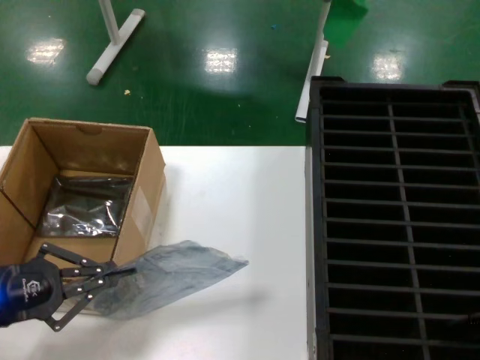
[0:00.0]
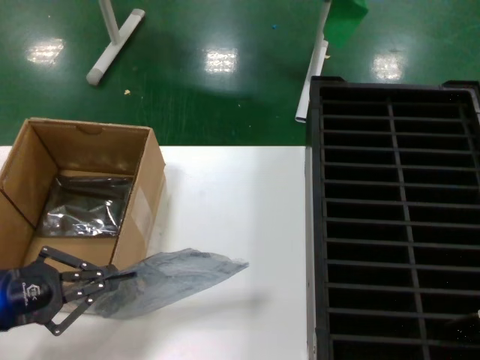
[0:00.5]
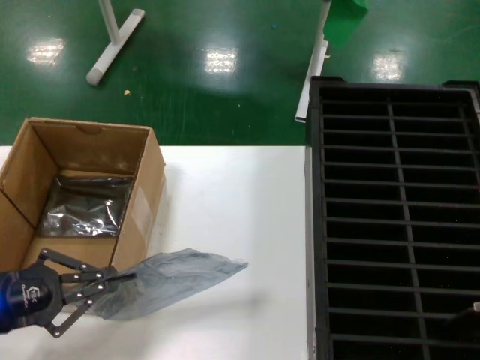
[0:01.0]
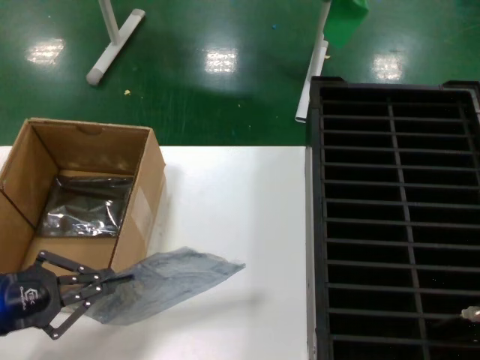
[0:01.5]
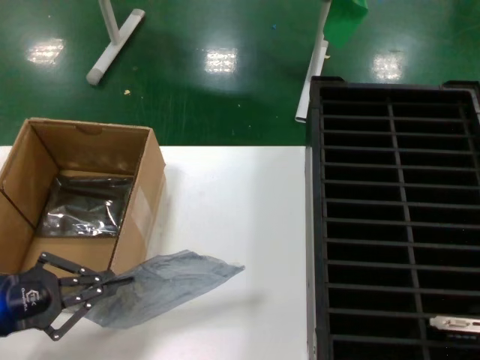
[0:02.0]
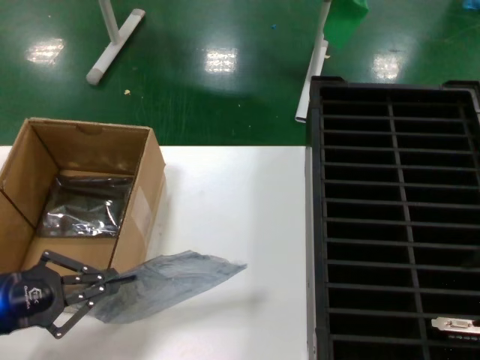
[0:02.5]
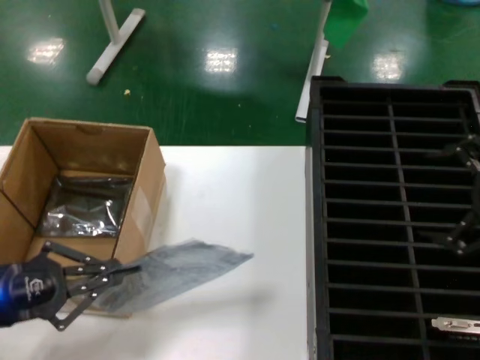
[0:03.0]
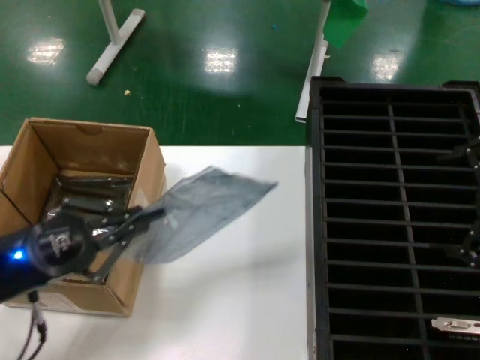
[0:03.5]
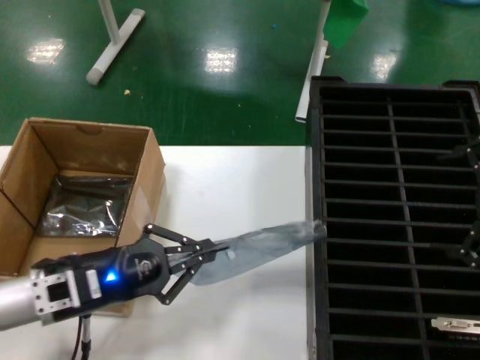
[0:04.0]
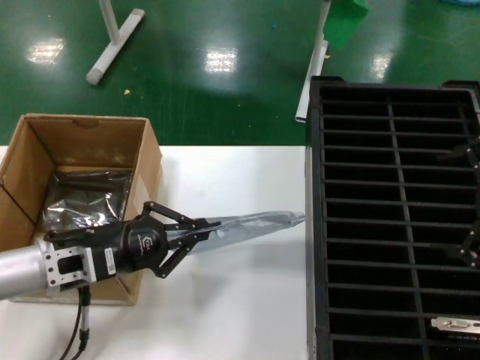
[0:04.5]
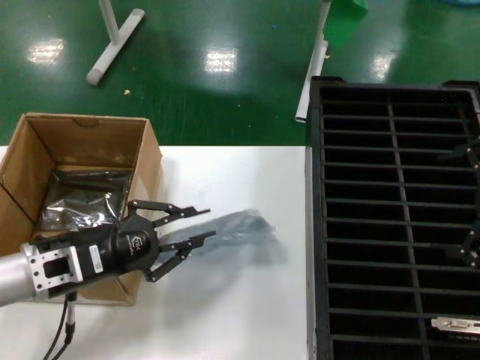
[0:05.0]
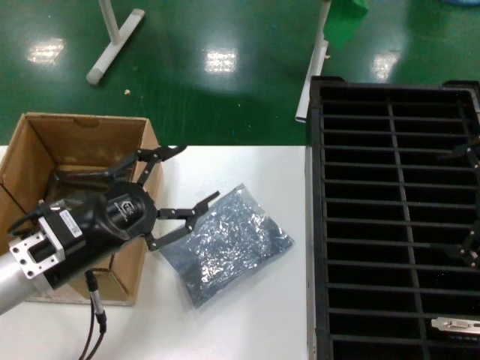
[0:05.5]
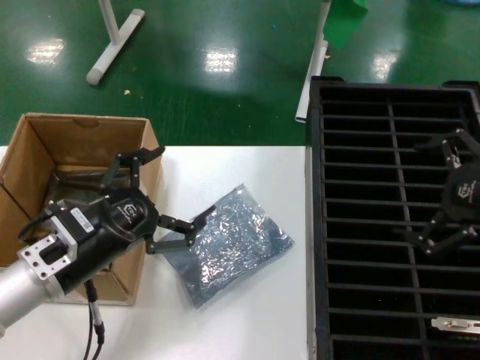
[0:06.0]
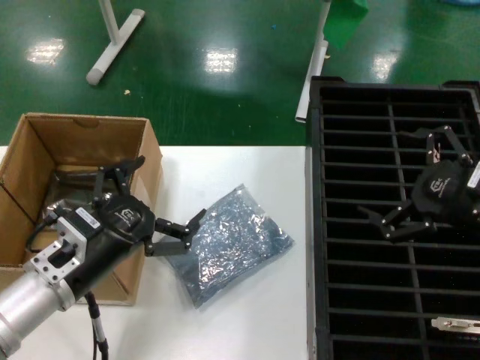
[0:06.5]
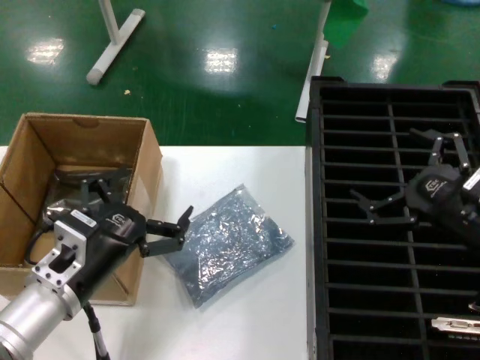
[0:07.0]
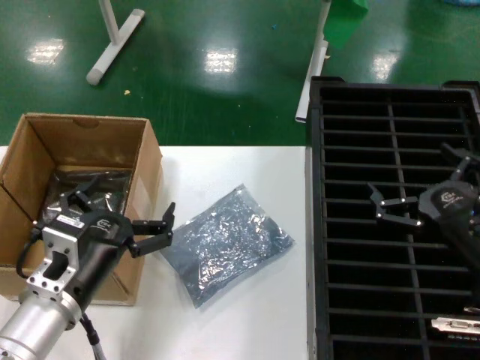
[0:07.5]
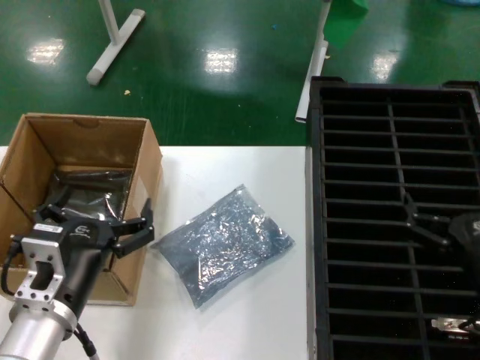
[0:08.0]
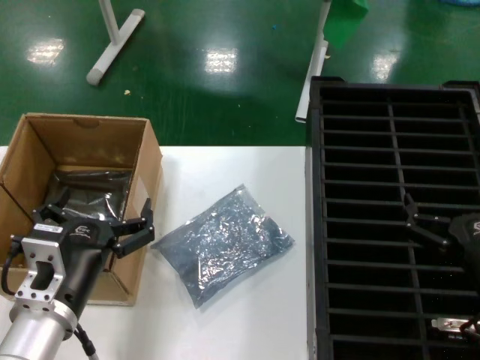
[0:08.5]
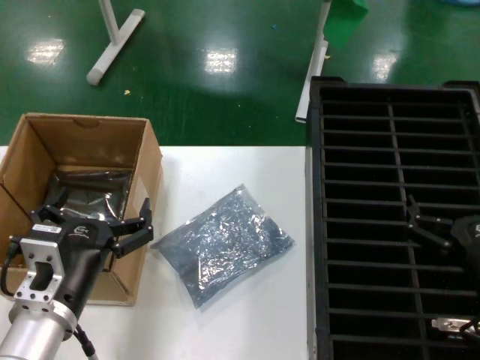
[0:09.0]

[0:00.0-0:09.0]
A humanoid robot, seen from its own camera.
Task of the whole recording: take out graphics card from box remove packaging put into black container.
Step, 0:00.0 to 0:02.0: Place the hard disk in the hard disk enclosure.
Step, 0:02.5 to 0:05.0: Place the down the bag.
0:00.0 to 0:02.0: There are only small adjustments of the hands.
0:02.0 to 0:04.5: The right hand travels forward by some 5 cm. The left hand heads to the right and forward, covering roughly 15 cm.
0:04.5 to 0:07.0: The right hand heads downward and to the left, covering approximately 15 cm. The left hand goes approximately 10 cm backward and to the right.
0:07.0 to 0:09.0: The right hand shifts some 10 cm downward and backward.
